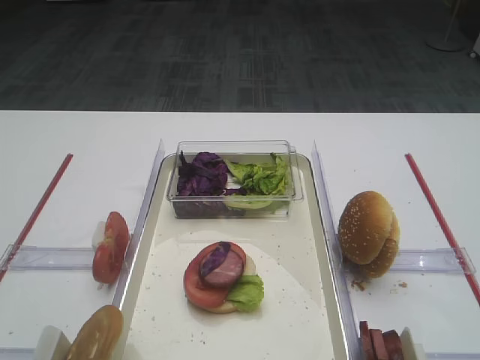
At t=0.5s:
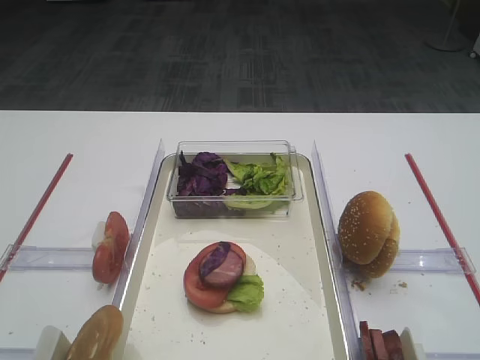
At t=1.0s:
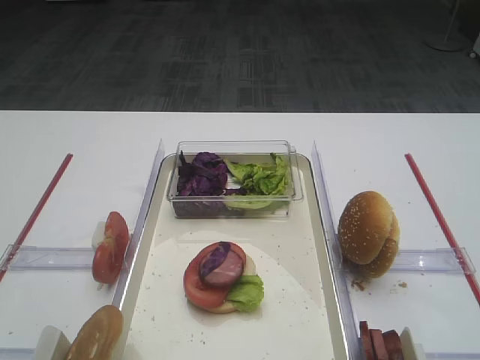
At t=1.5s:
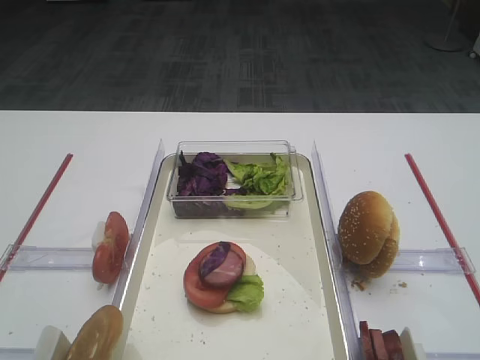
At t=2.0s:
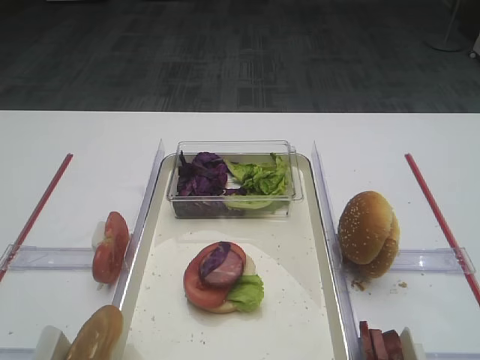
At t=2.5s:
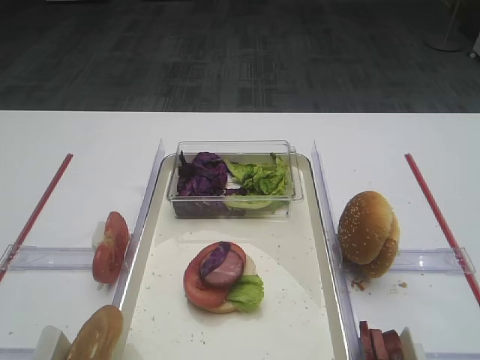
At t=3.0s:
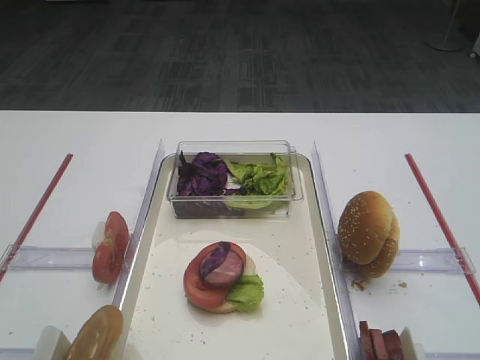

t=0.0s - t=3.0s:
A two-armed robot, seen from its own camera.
t=0.0s - t=3.0s: Both grippers stay about where they are.

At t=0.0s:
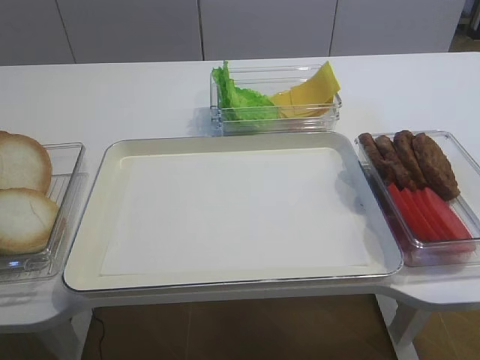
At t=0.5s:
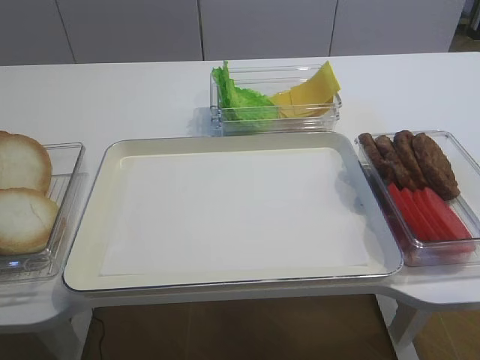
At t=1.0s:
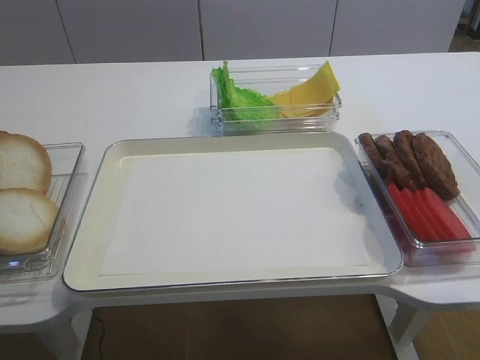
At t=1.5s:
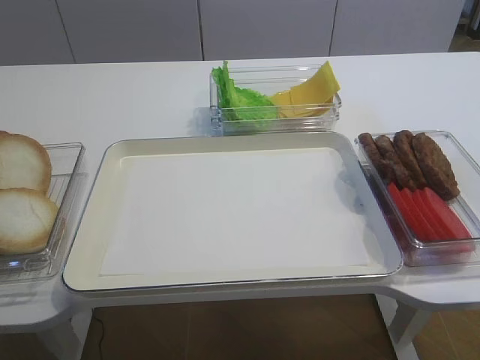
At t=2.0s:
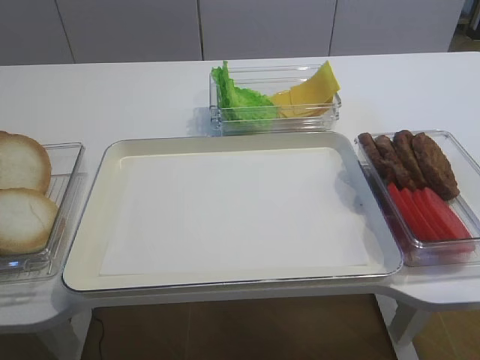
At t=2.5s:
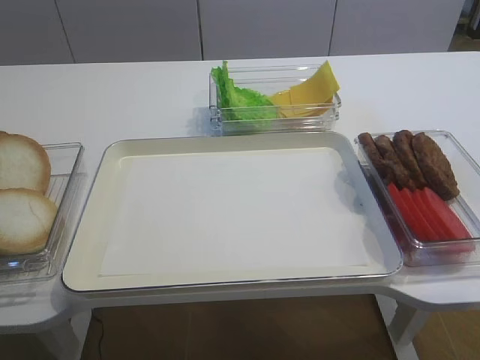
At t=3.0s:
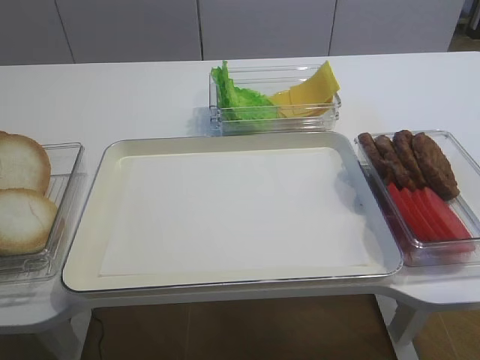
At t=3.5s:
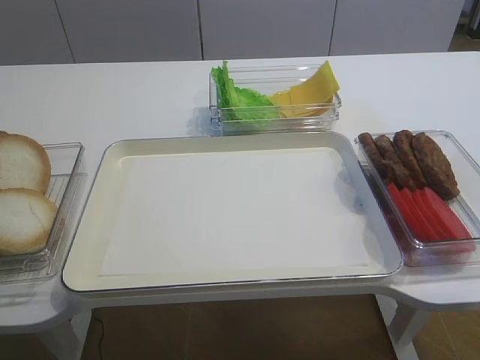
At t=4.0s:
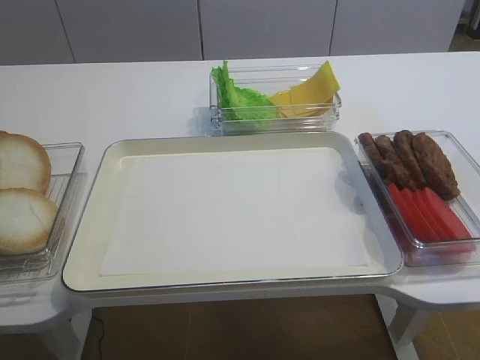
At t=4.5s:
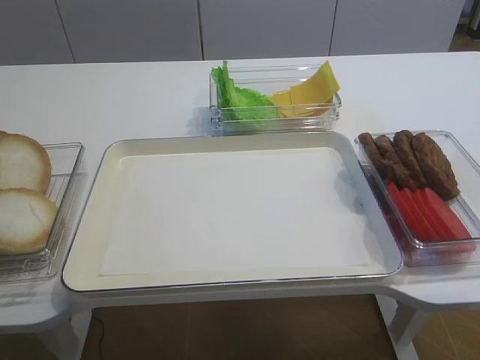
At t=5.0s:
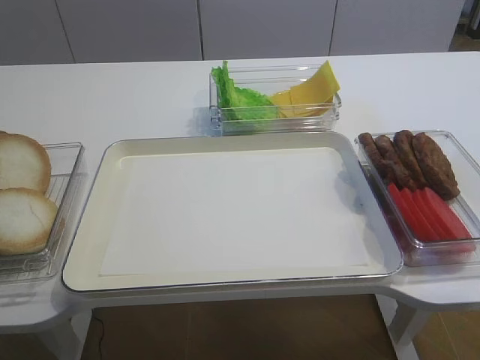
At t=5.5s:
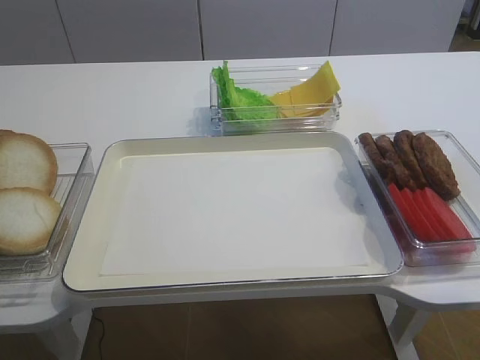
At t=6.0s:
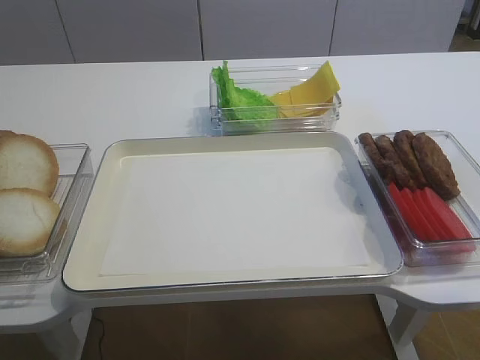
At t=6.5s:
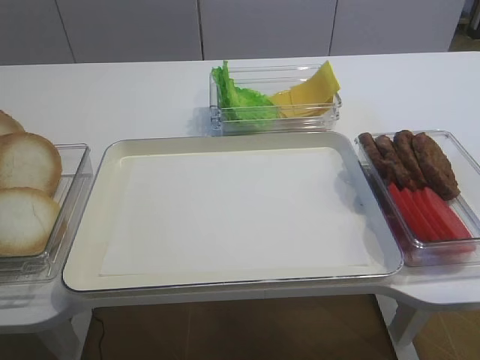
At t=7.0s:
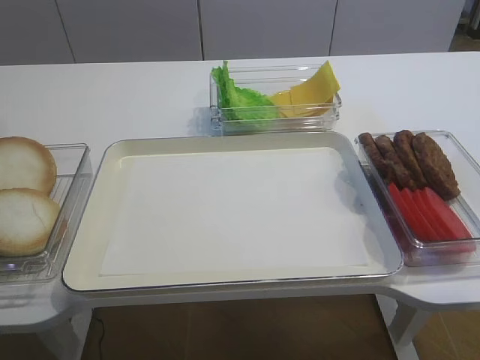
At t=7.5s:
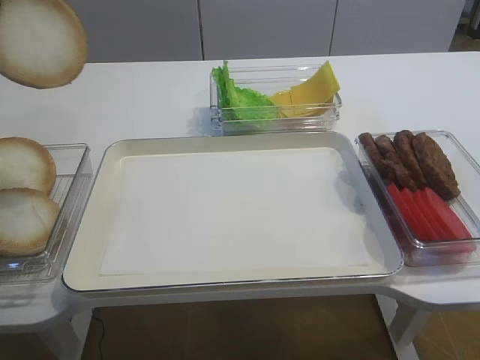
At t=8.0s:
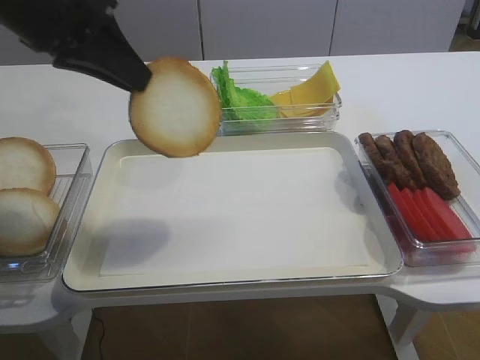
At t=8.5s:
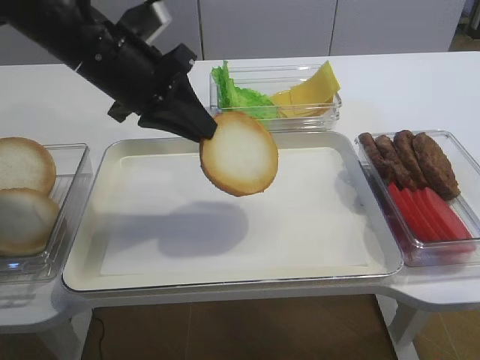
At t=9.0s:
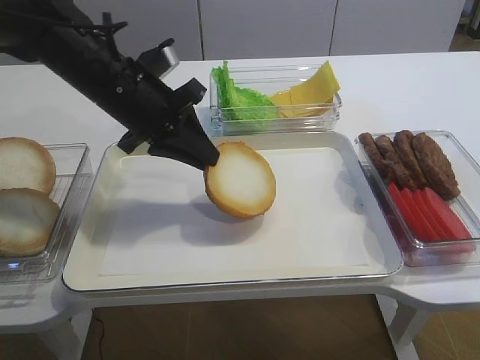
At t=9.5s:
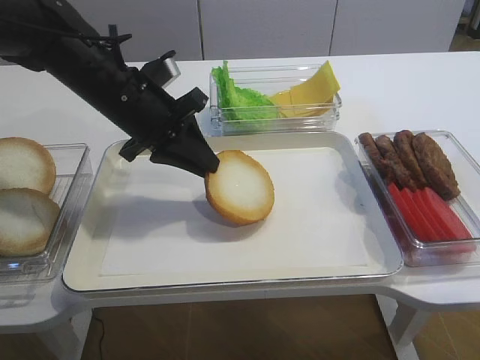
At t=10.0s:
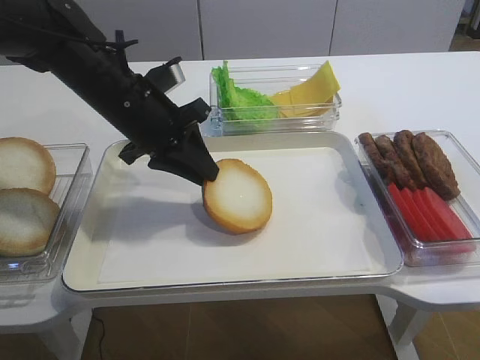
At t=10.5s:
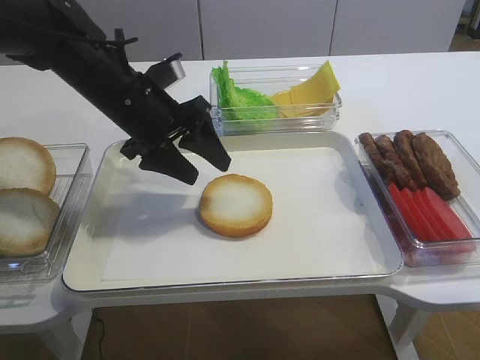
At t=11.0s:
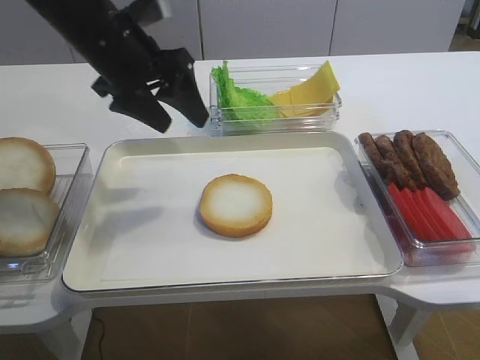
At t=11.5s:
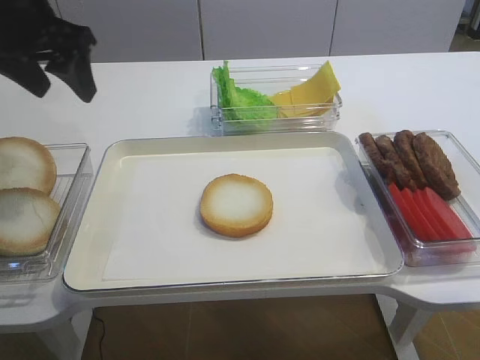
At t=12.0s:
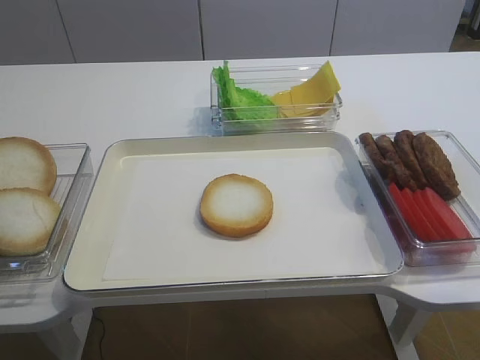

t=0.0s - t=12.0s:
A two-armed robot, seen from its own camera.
Step, t=0.0s - t=7.0s: Pick up the bread slice with the left gripper.
Step, t=7.5s - t=10.5s: Place the bread slice on the tray with the left gripper.
t=4.0s - t=6.0s: The left gripper closes its fingers.
t=6.0s - t=8.0s: The left gripper heads to the right and upward, covering about 20 cm.
t=8.0s - t=10.0s: The left gripper is displaced downward, forward and to the right by about 15 cm, while the right gripper closes its fingers.
t=10.0s - t=12.0s: The left gripper travels to the left, upward and backward by approximately 25 cm, and opens up.

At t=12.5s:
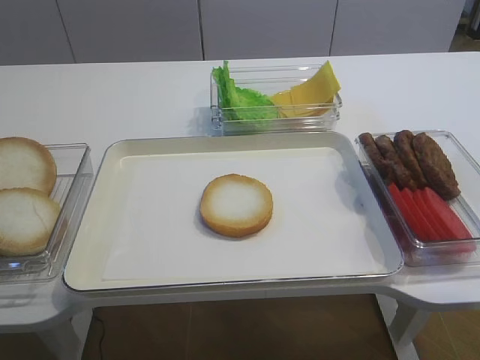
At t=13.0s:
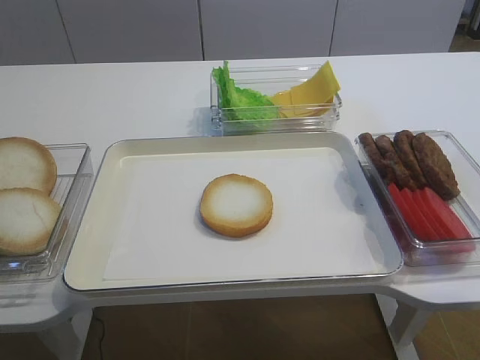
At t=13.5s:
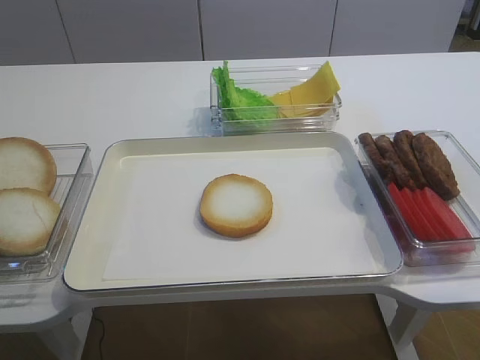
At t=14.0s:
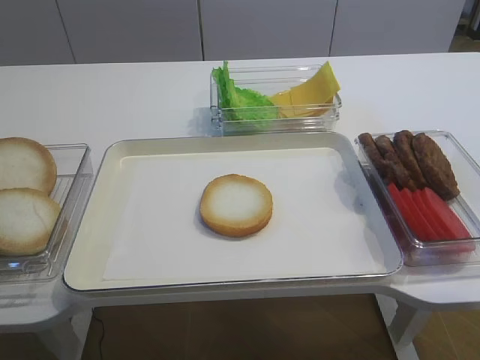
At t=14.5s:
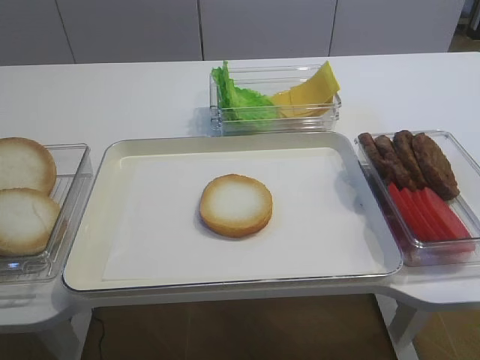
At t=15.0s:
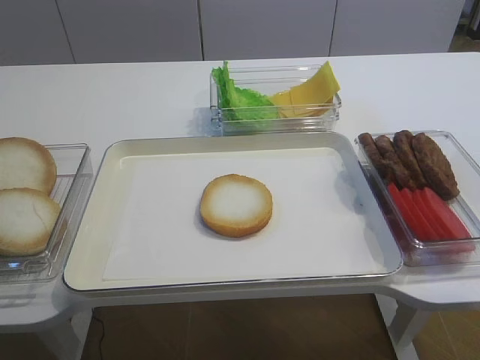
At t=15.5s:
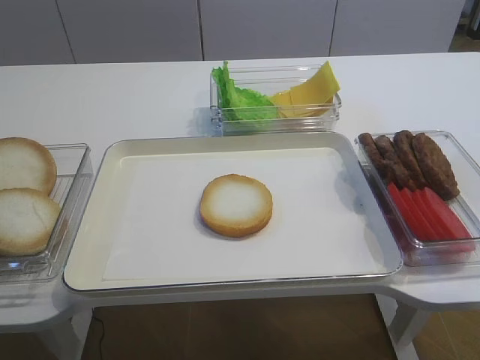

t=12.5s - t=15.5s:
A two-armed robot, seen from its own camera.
t=14.0s - t=15.5s: Both grippers stay put.

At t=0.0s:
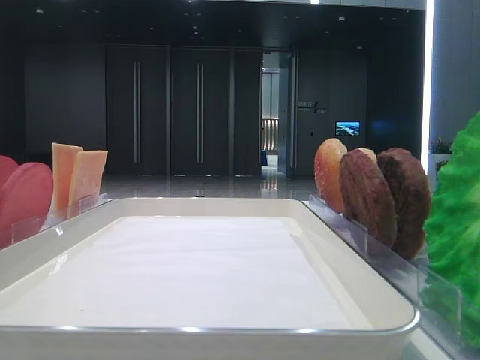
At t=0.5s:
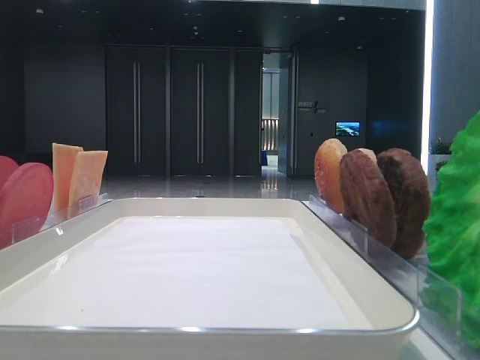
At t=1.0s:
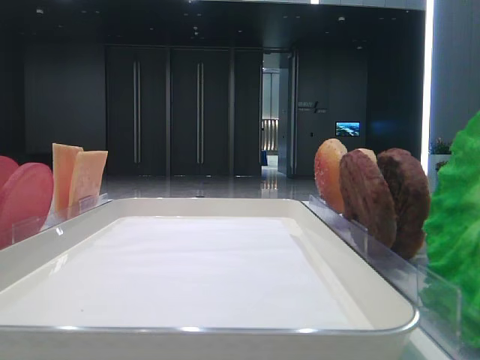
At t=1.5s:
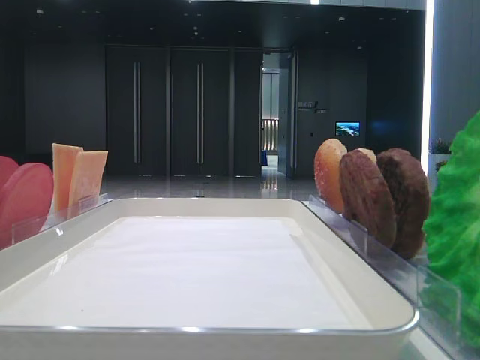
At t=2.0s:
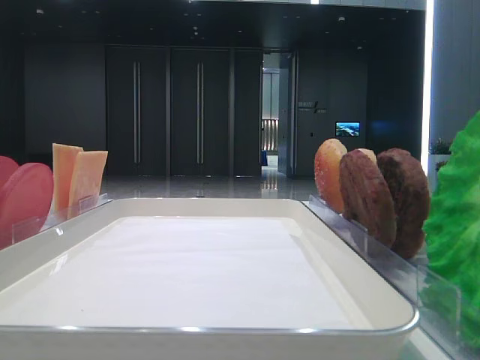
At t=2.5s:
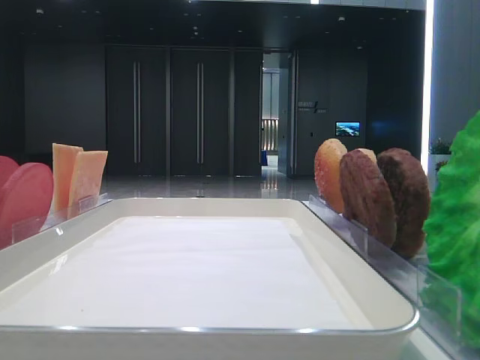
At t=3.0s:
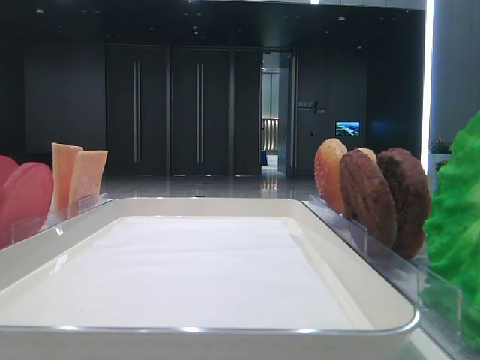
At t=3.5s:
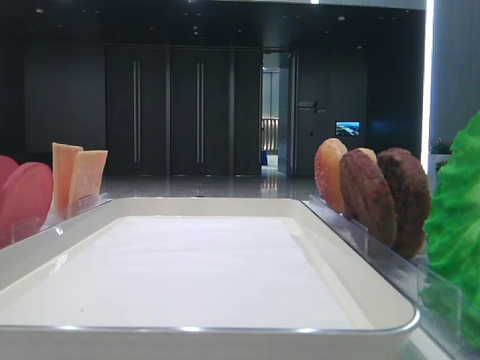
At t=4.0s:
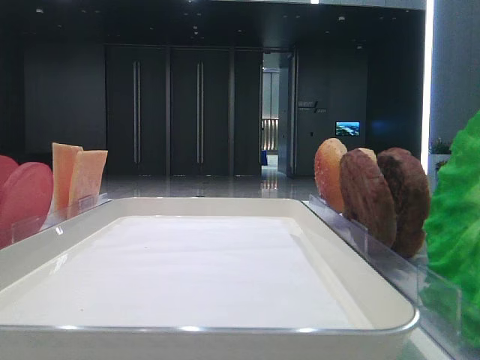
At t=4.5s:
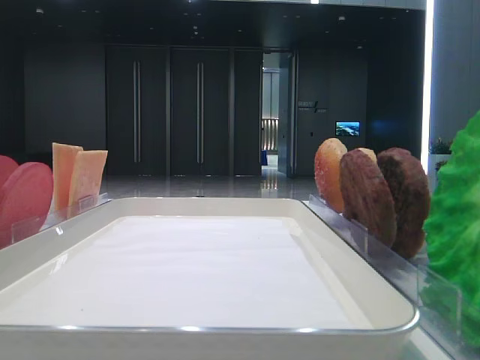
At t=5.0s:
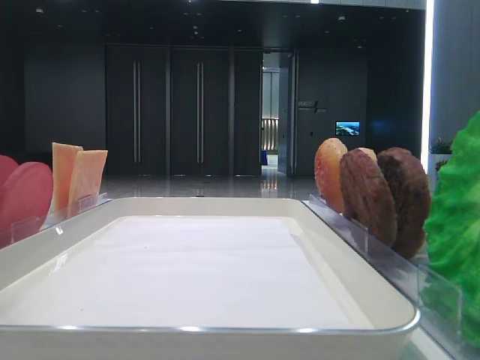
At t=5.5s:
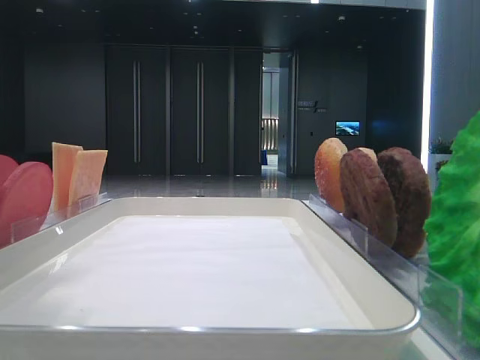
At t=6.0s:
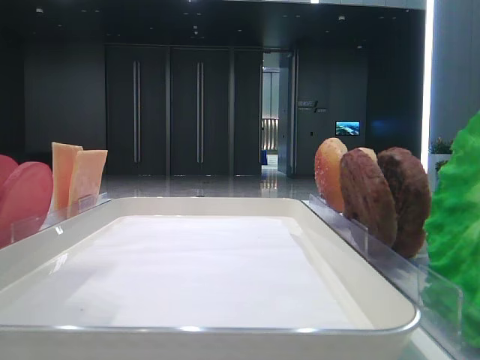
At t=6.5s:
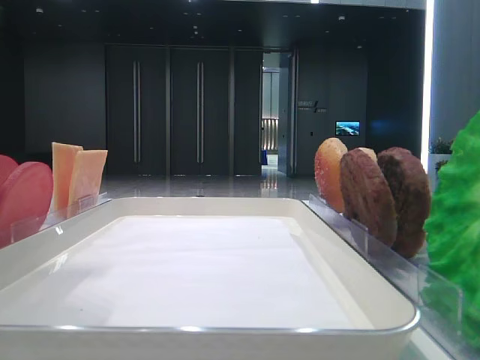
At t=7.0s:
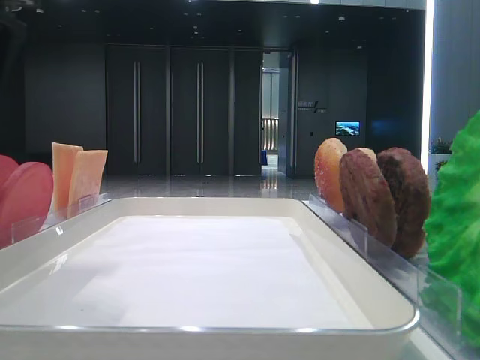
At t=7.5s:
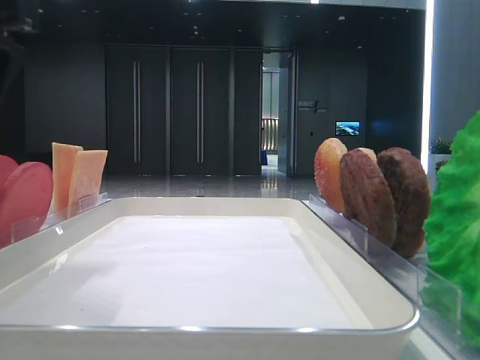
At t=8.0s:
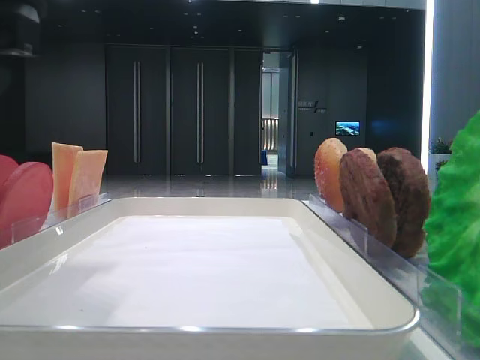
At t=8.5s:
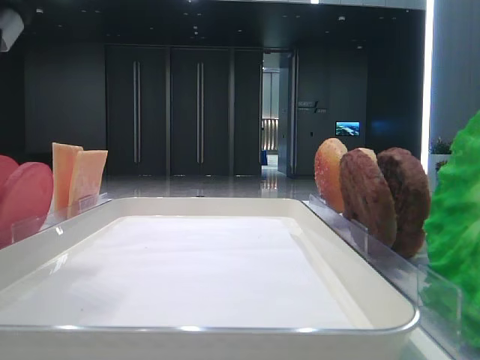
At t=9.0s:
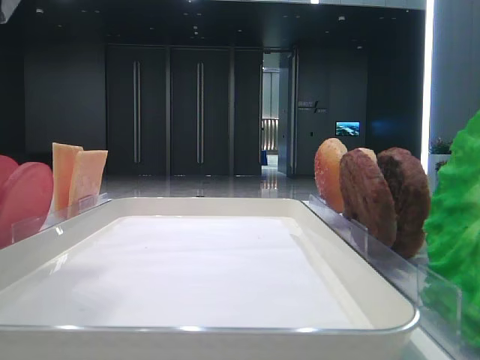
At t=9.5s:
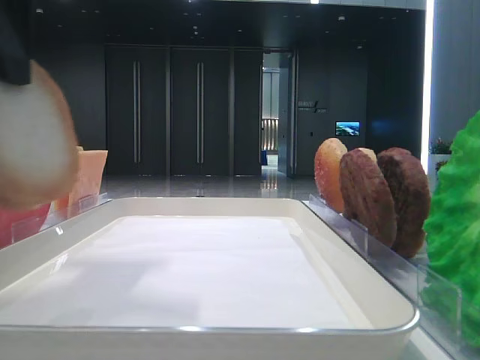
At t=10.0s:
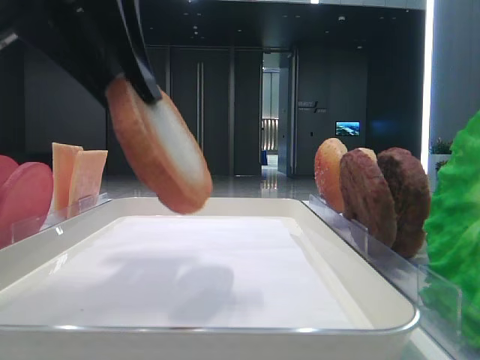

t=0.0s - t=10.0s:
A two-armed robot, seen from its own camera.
Step, t=0.0s - t=5.5s: Pick up the bottom bread slice with the left hand.
t=4.0s - t=6.0s: The left gripper moves to the right and downward, about 15 cm.
t=8.0s - t=10.0s: The left gripper heads to the right, covering roughly 5 cm, and closes its fingers.
